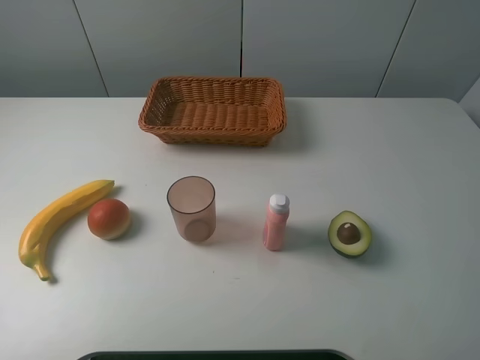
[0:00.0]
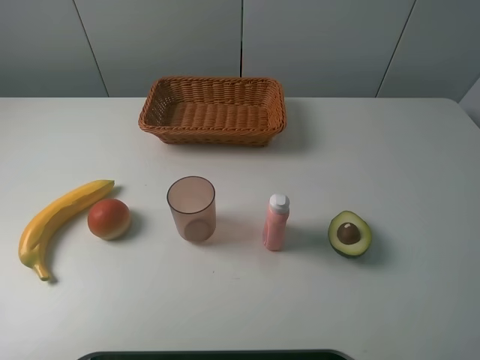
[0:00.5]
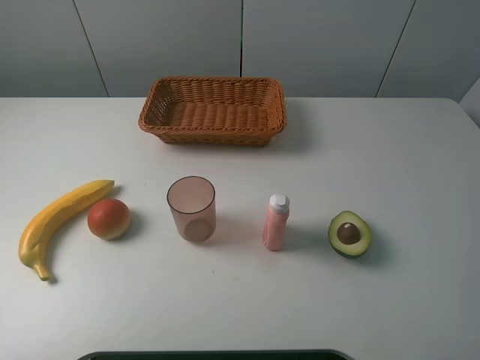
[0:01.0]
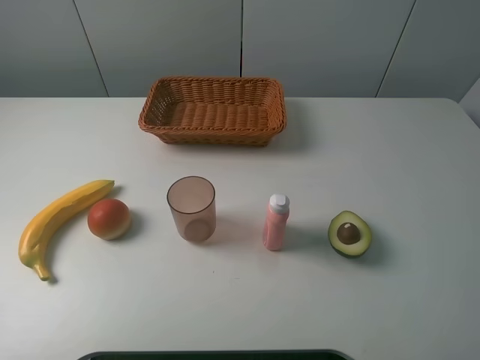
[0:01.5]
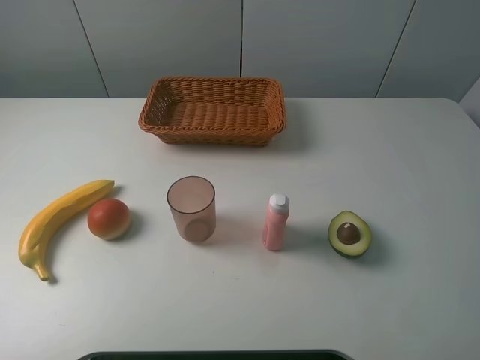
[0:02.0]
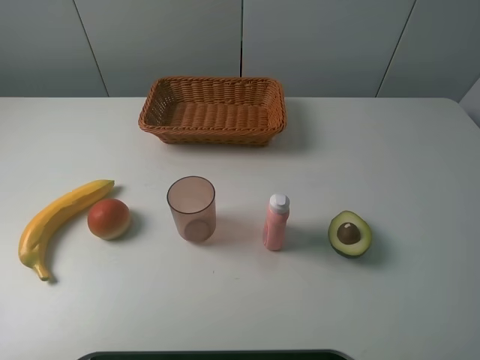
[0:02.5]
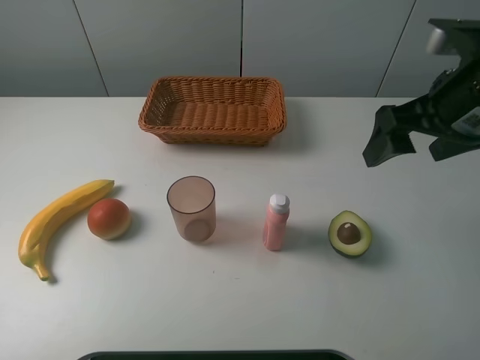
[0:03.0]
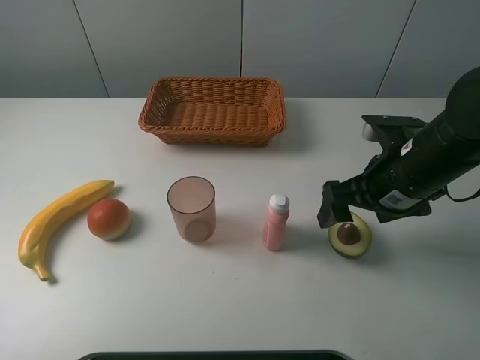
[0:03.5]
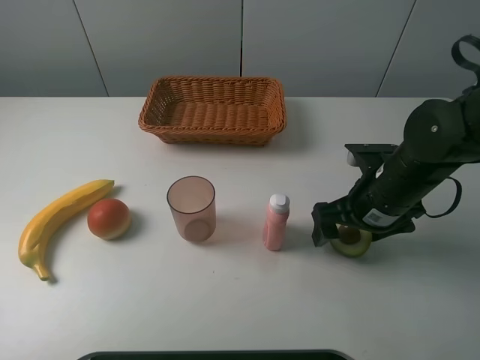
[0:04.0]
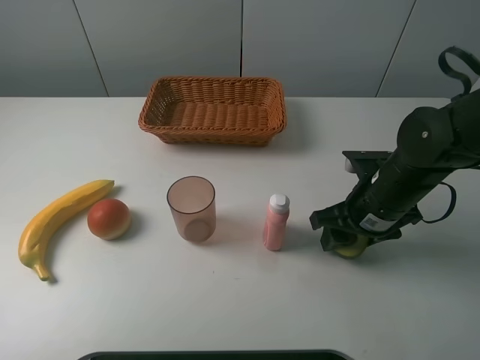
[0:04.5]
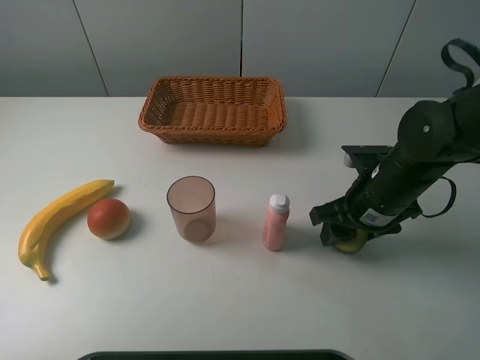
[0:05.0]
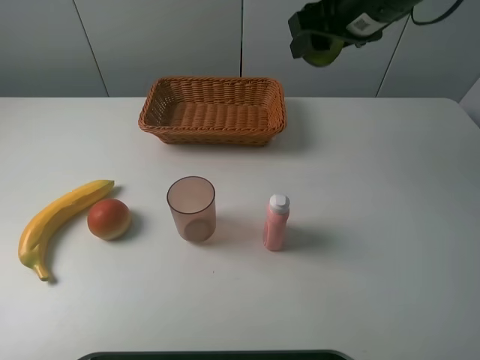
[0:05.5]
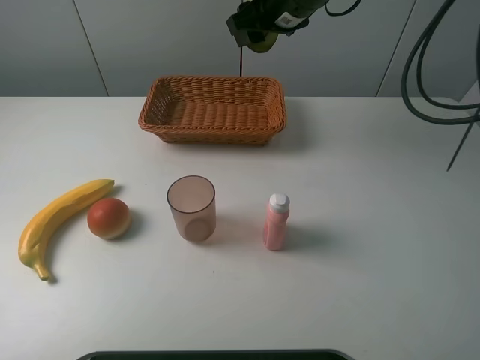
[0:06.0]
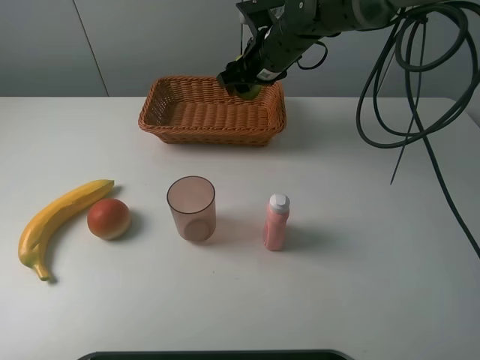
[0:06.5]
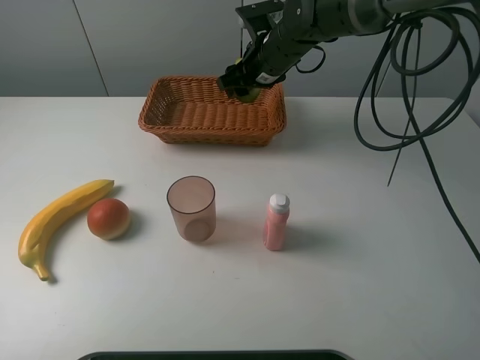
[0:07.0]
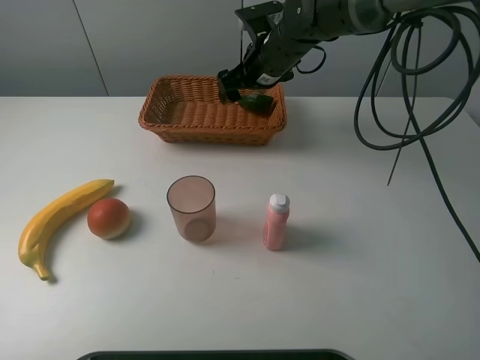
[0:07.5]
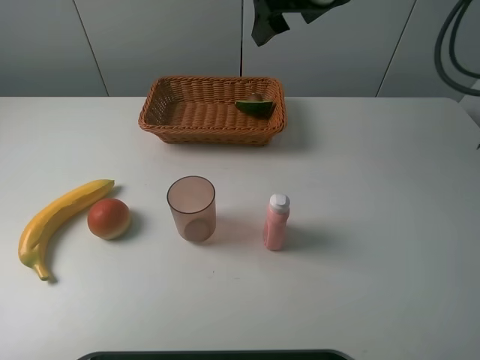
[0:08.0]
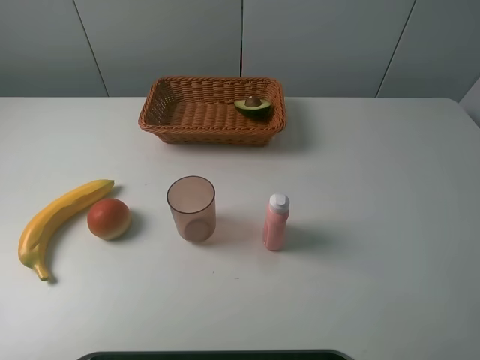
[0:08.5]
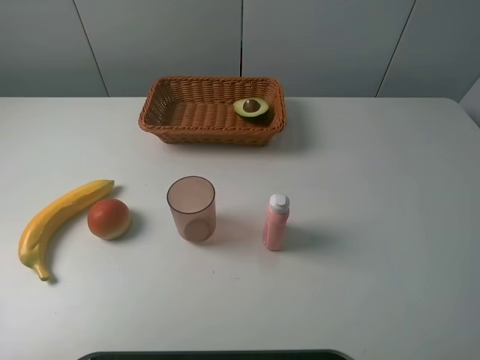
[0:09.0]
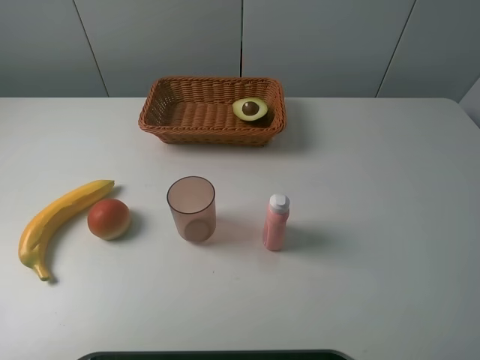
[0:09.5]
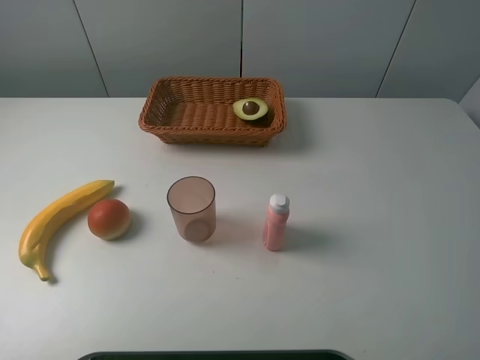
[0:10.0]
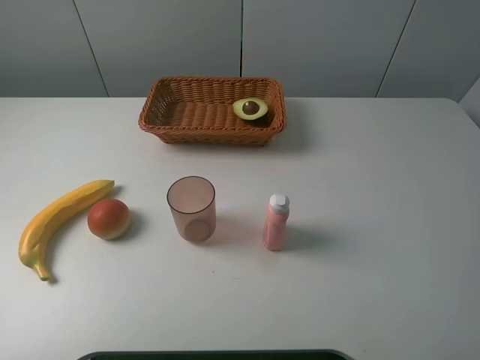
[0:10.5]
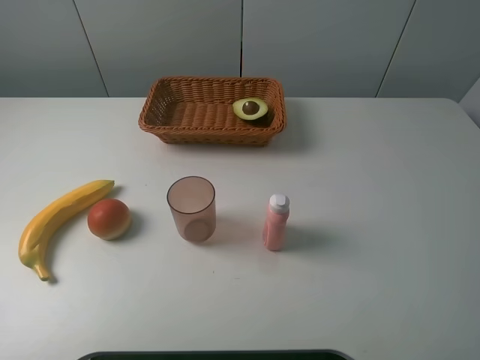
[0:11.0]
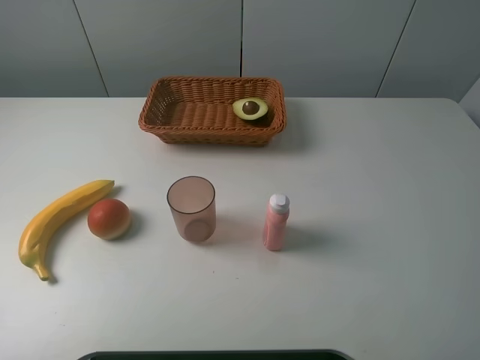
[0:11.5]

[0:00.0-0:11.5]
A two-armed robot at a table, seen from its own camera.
Task of the whole recording: randomly pick up an item from the table and put it in the basket.
Step, 0:00.0 to 0:04.5: Grasp the avocado with the right gripper.
Step, 0:05.0 to 0:07.5: Place the avocado into the basket with the right gripper.
0:02.0 to 0:04.0: The right gripper travels forward, downward and to the left by about 30 cm.
0:04.0 to 0:06.0: The right gripper travels forward, upward and to the left by roughly 25 cm, and closes.
0:06.0 to 0:07.5: The right gripper travels downward by approximately 10 cm, and opens up.
0:07.5 to 0:09.5: The right gripper shifts approximately 50 cm backward, to the right and upward.

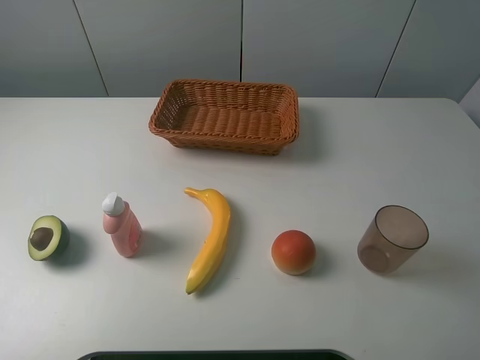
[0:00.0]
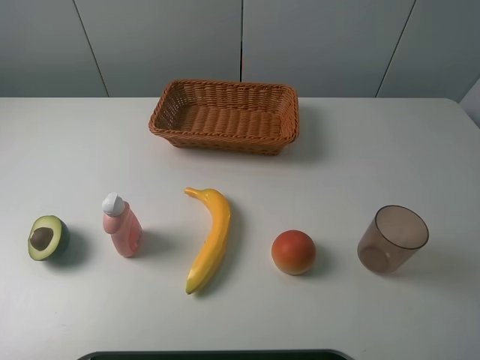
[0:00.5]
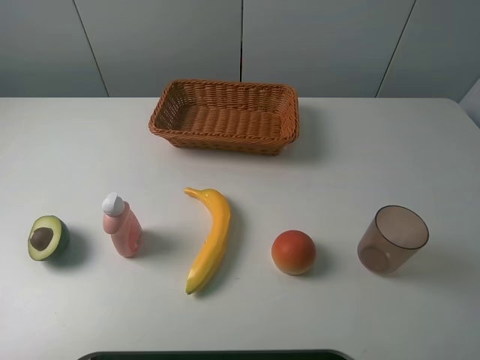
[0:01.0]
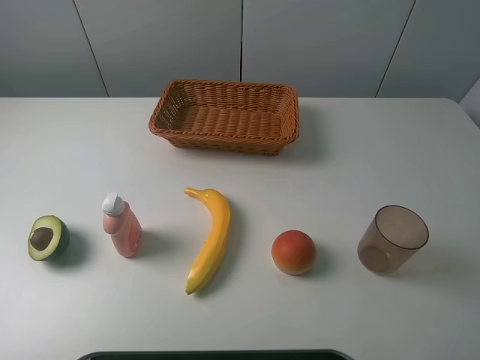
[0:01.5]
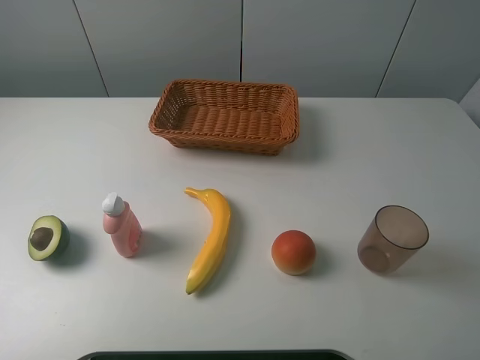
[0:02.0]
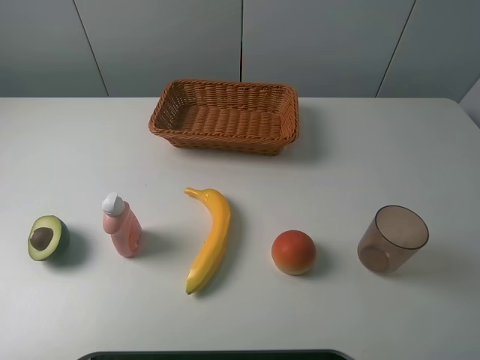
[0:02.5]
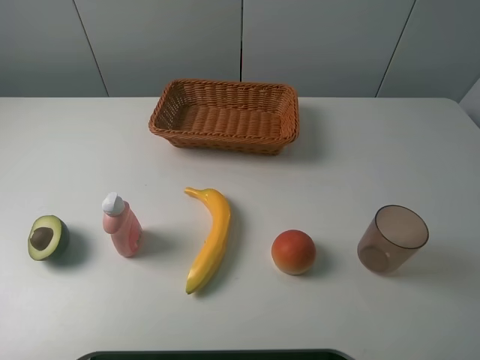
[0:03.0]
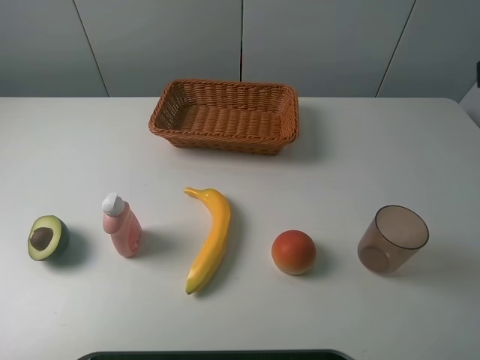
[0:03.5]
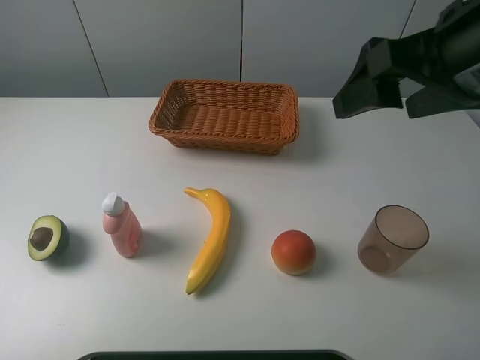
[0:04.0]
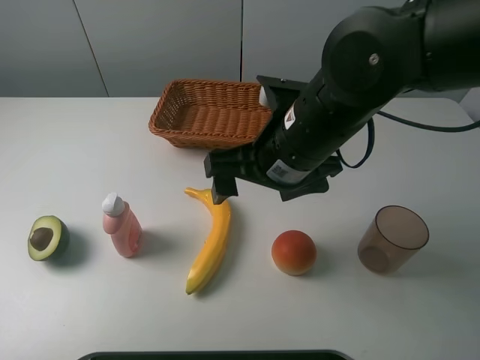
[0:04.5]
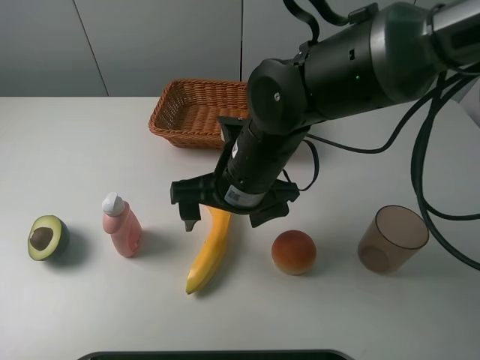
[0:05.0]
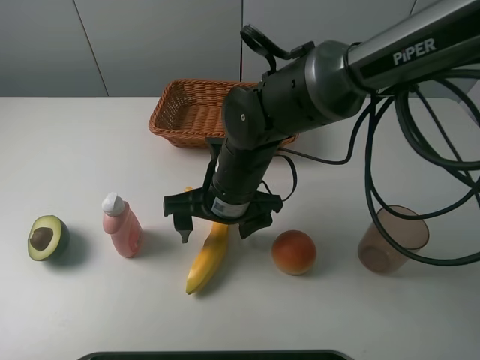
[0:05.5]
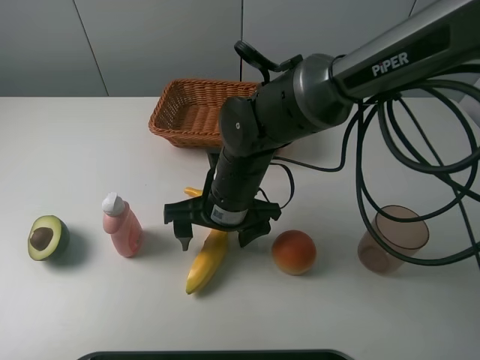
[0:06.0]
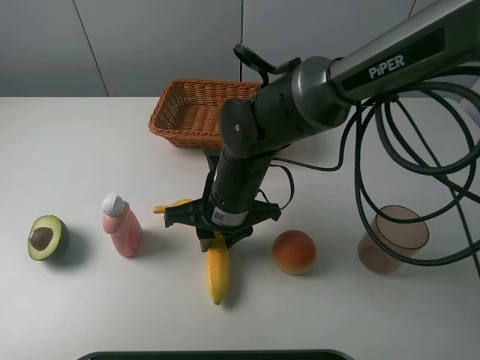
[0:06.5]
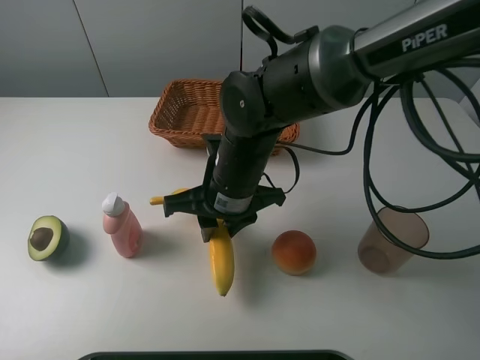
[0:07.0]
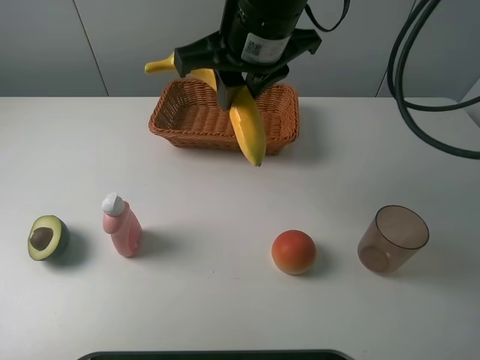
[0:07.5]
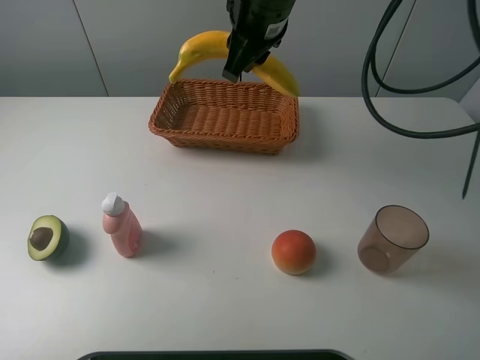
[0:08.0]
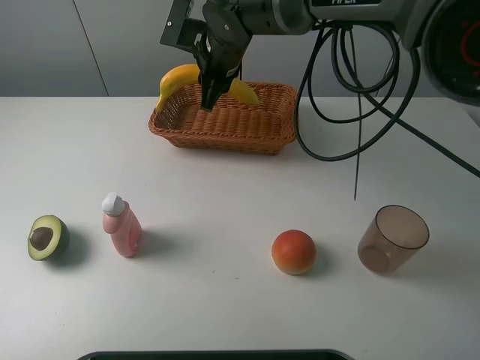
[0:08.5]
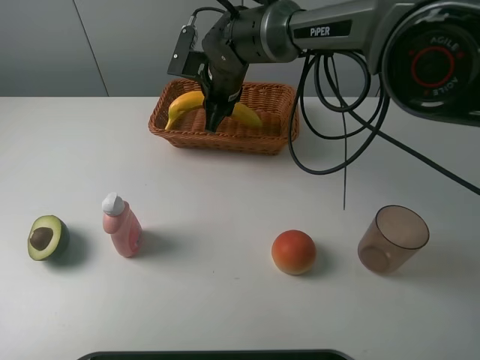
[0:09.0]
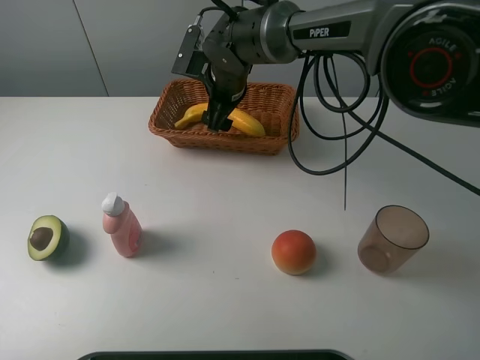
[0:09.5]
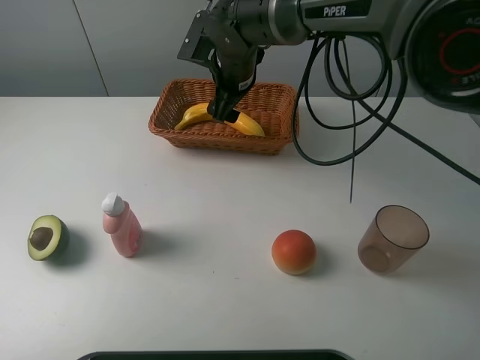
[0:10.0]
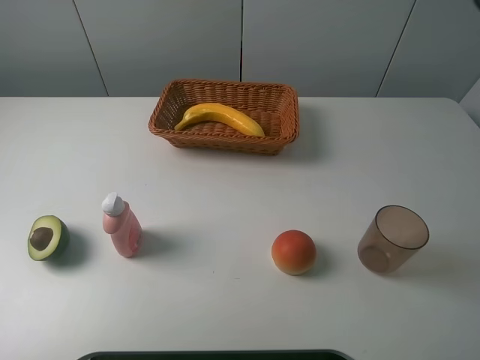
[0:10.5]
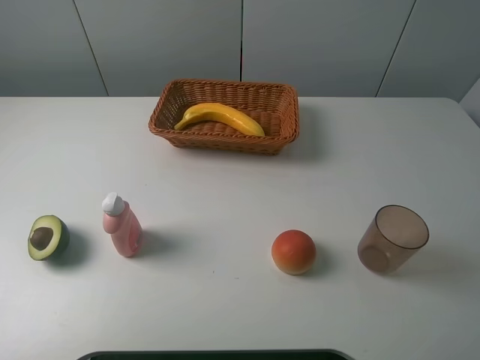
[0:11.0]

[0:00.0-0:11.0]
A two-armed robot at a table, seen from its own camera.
Task of the whole recording: randomly pick up an item from the table and put it in the basket.
Step, 0:00.0 to 0:06.0: Grasp the banana with the right gripper.
Step, 0:06.5 to 0:10.0: Place the banana into the basket with the right gripper.
0:00.0 to 0:02.0: Both grippers stay about where they are.
0:03.5 to 0:05.5: The right gripper moves to the left and downward, approximately 35 cm.
0:05.5 to 0:07.5: The right gripper shifts some 20 cm upward, and closes its fingers.
0:07.5 to 0:09.0: The right gripper goes approximately 20 cm downward and forward.
0:09.0 to 0:11.0: The right gripper travels upward, backward and to the right by roughly 50 cm, and opens up.

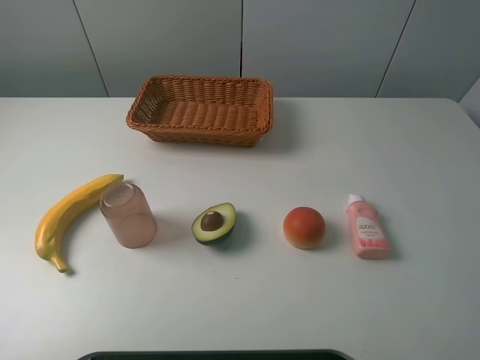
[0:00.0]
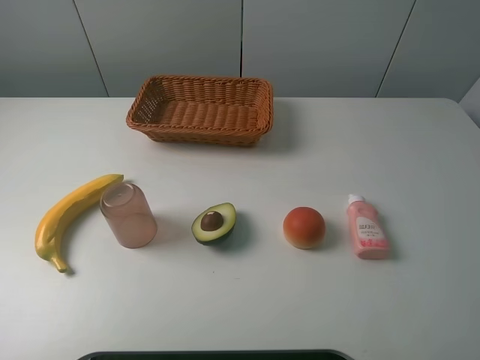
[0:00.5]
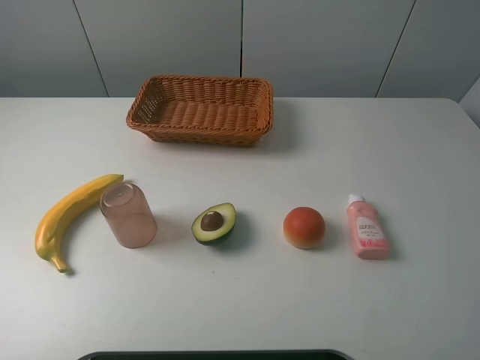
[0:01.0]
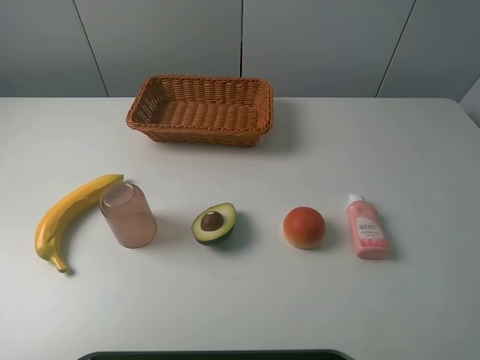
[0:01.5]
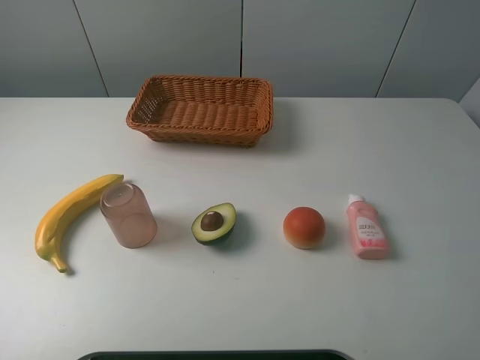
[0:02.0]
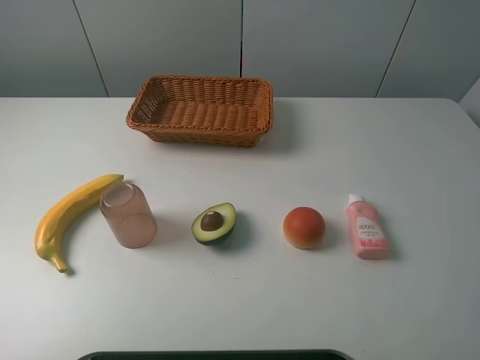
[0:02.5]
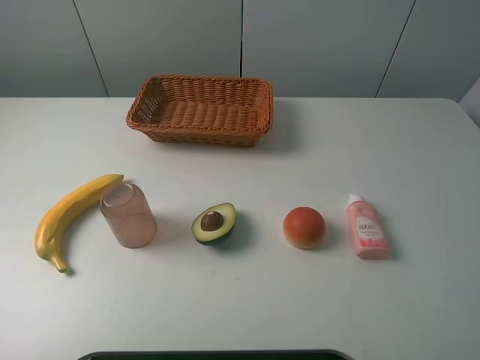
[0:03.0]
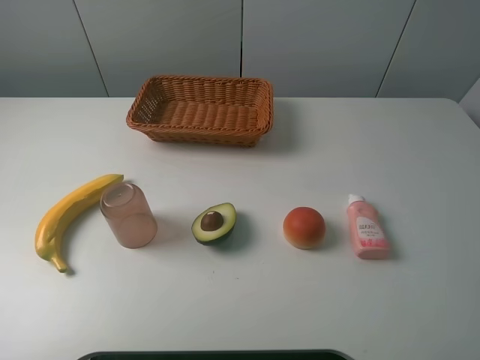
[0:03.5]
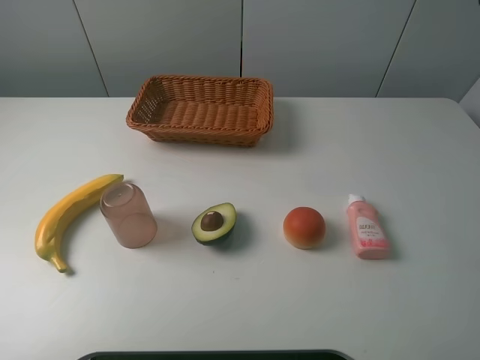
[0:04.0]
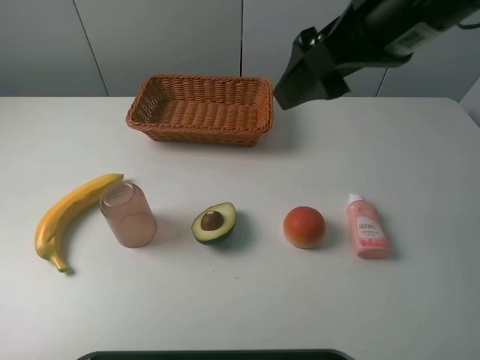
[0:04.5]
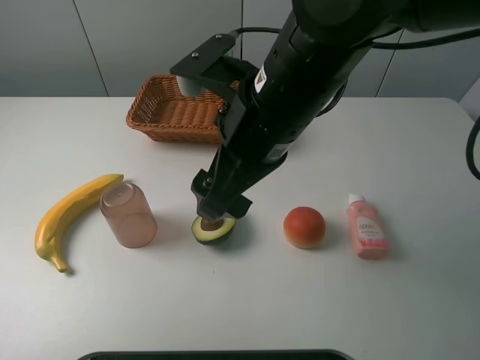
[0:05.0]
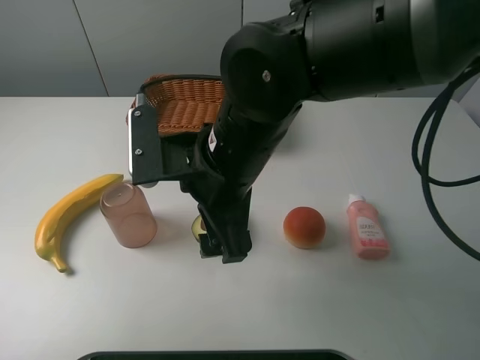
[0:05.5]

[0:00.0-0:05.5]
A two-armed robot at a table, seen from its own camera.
Task of the whole recording: randomly pick up an item from the table and put it in the basket.
0:00.0 to 0:02.0: Both grippers stay put.
0:03.5 to 0:05.5: The right gripper is displaced to the left, downward and forward by roughly 35 cm.
